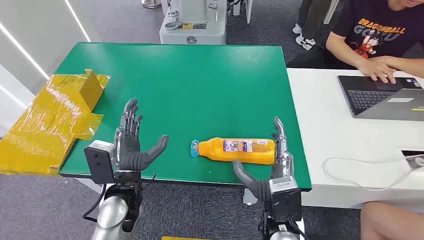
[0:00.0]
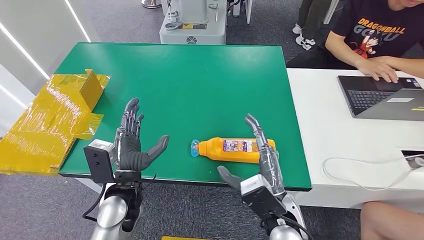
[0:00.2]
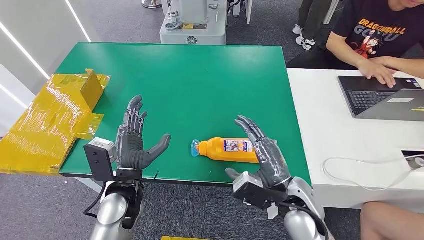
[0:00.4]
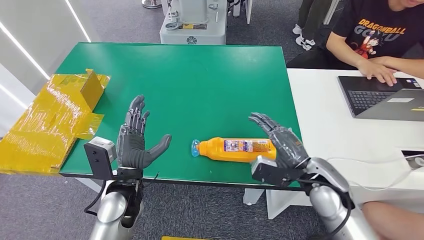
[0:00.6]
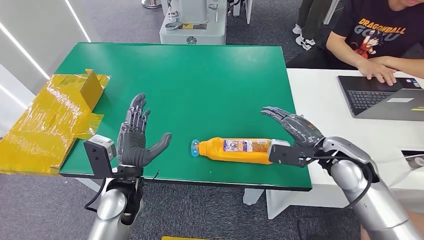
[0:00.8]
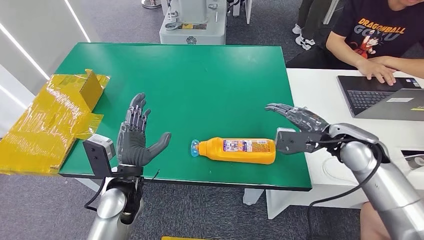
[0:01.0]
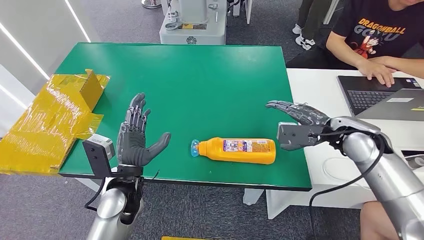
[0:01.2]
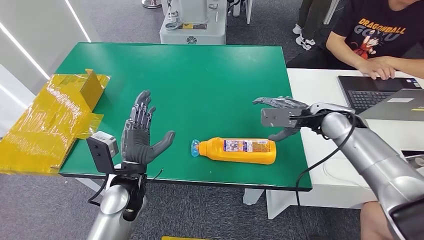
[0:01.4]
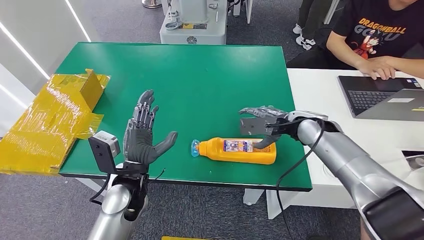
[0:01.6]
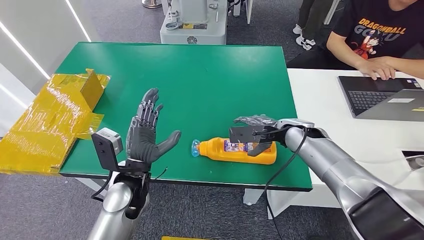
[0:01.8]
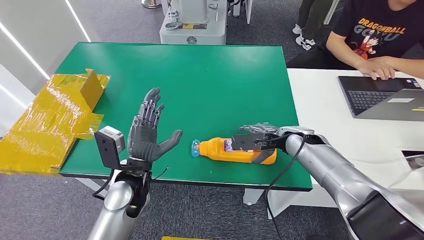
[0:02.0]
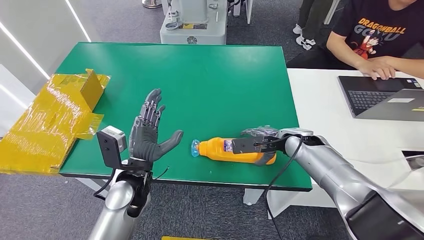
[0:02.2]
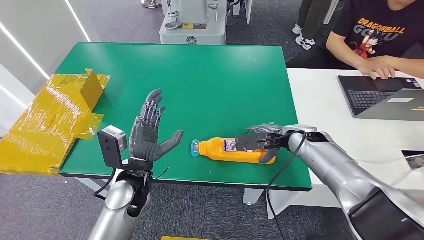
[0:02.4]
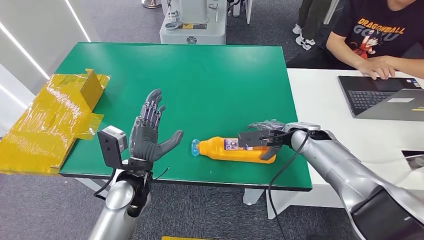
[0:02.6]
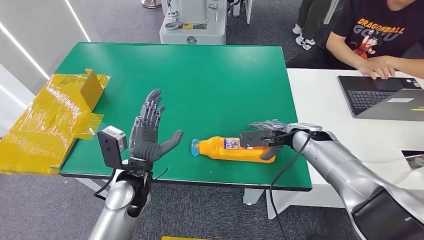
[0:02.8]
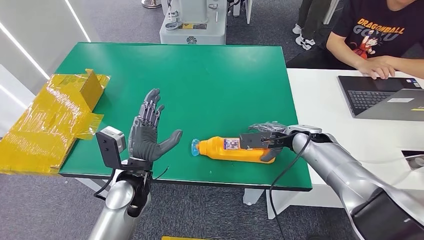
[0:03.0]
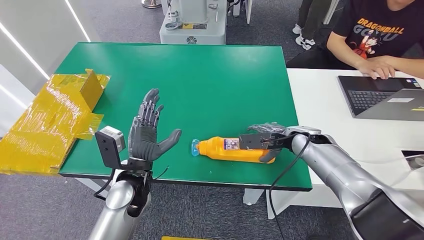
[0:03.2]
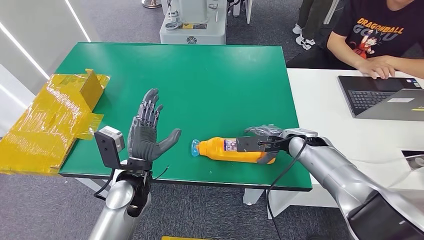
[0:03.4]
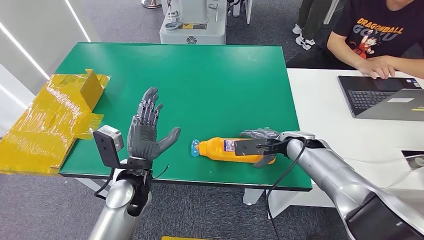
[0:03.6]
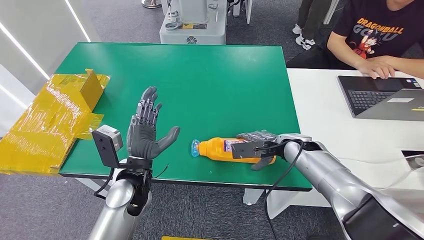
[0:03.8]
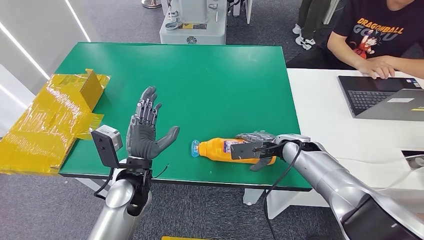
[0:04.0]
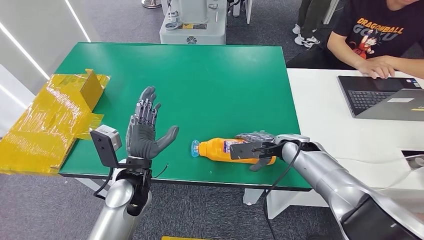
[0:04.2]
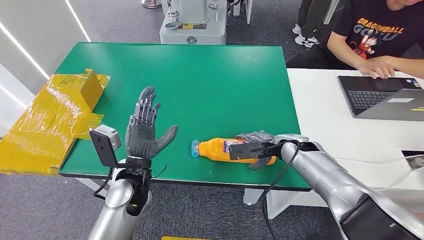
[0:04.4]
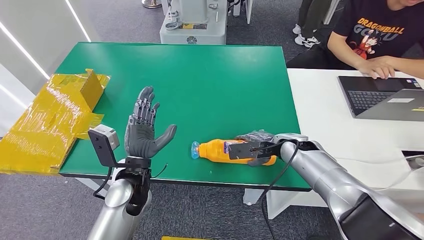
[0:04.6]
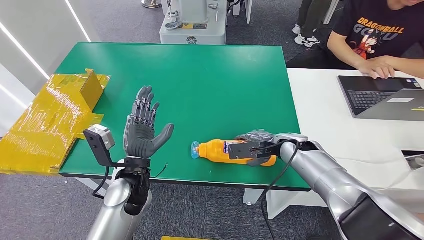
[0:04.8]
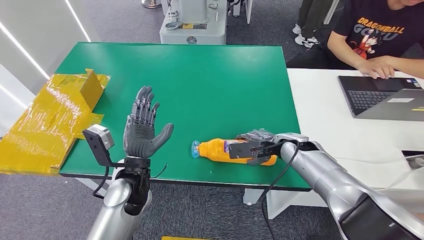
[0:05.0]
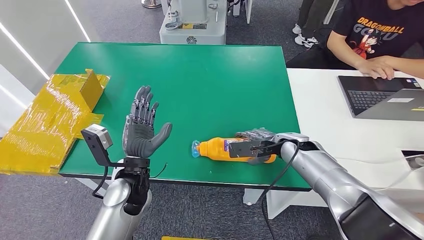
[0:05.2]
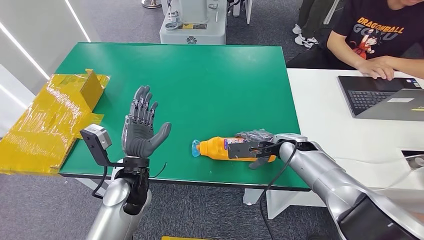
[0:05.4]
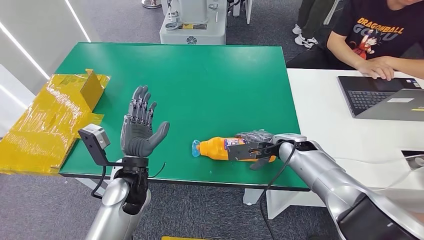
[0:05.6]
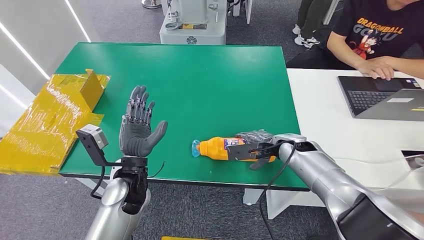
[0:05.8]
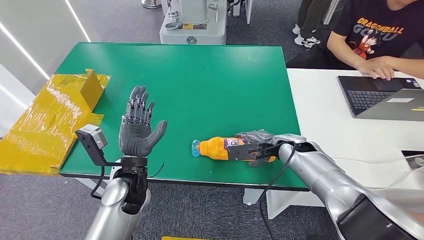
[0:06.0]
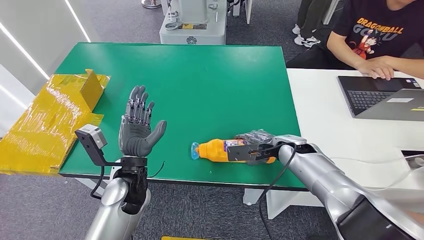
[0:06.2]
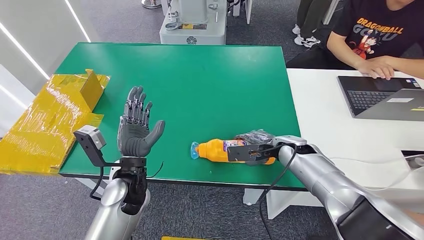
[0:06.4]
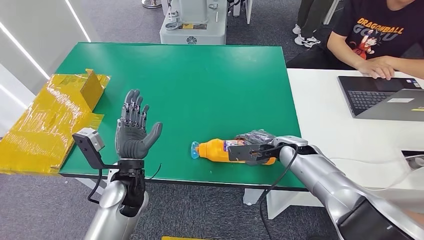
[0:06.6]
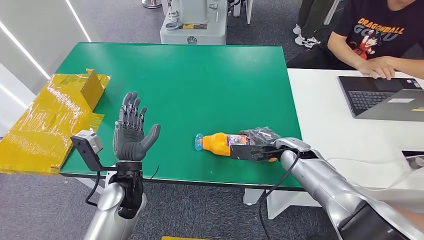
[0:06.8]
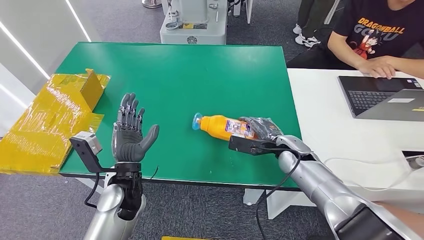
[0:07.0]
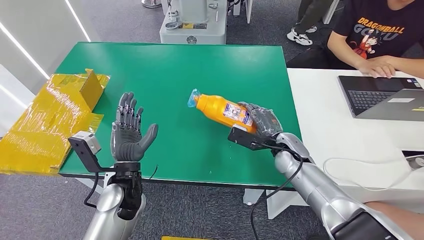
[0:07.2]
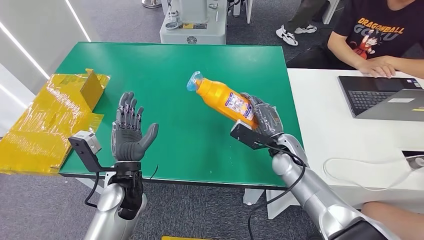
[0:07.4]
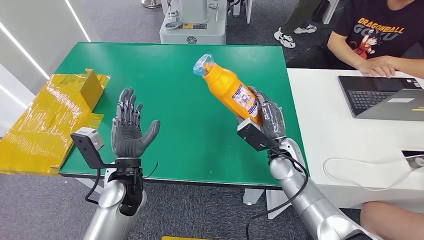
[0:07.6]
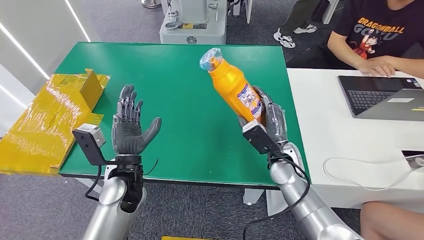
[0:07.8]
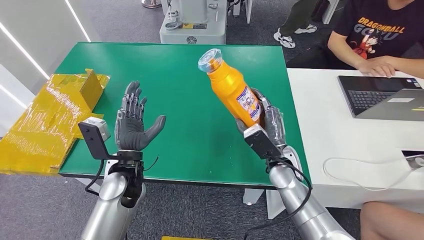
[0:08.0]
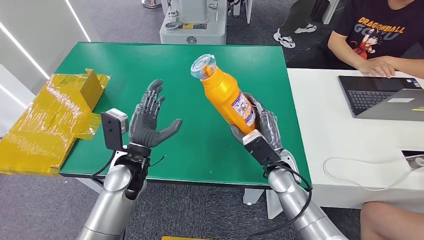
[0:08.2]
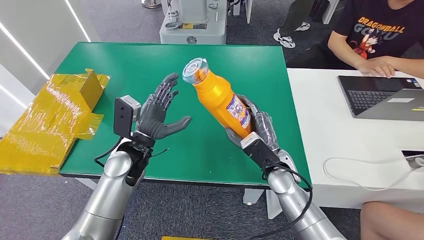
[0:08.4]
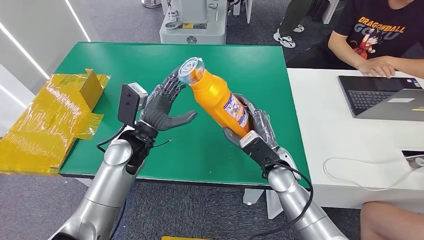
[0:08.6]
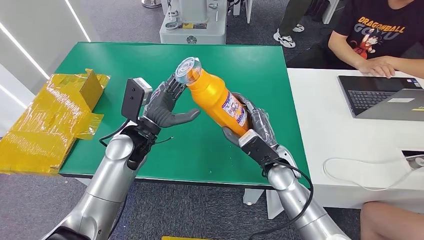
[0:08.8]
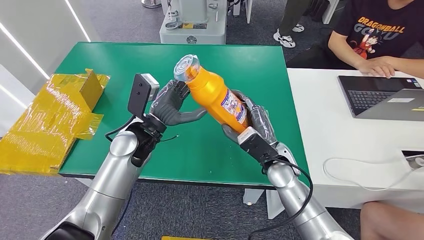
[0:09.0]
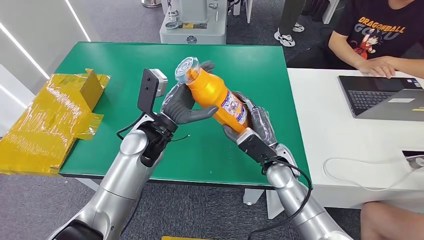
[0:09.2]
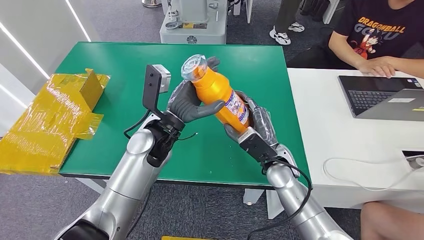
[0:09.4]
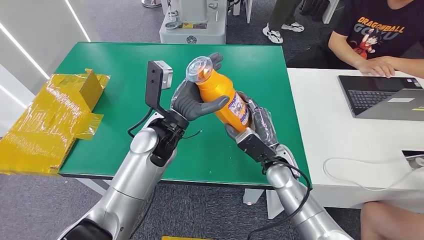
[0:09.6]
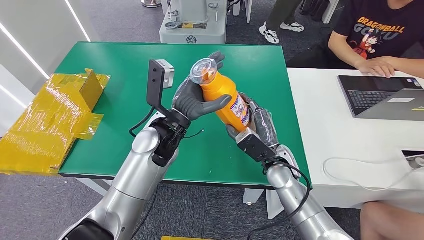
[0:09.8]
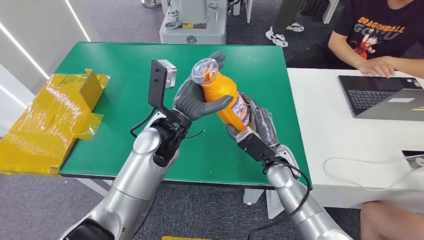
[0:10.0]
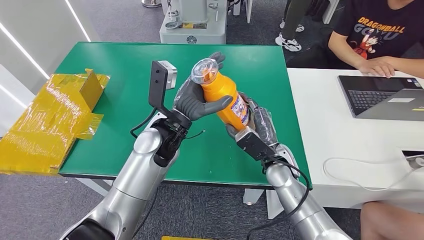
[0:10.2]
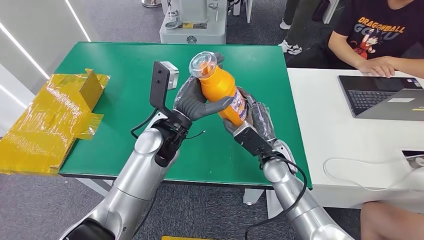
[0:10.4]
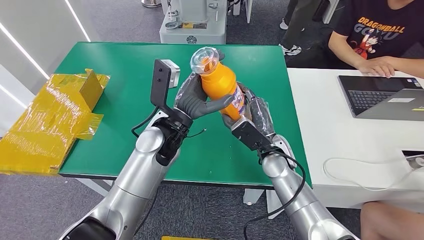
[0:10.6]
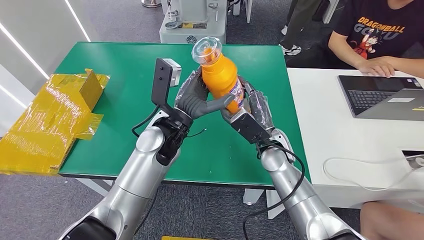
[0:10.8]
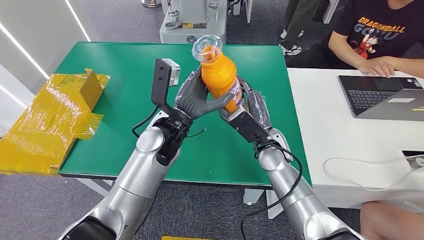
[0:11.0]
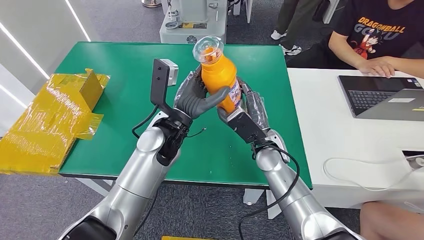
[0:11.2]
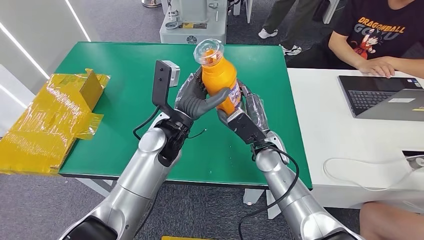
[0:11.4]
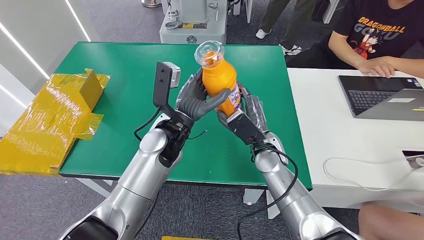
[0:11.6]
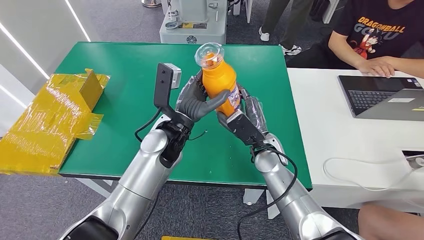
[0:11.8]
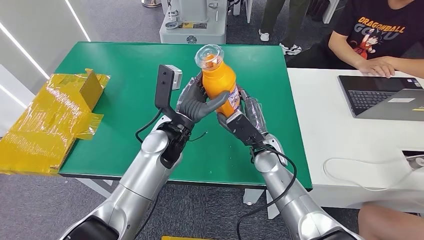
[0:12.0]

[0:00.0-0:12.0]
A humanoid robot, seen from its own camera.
Step, 0:00.0 to 0:07.6: Pick up the bottle from the table.
0:01.6 to 0:03.0: The hands stay close to where they were, moving slightly.
0:03.0 to 0:06.0: There are only small adjustments of the hands.
0:06.0 to 0:07.6: The right hand is displaced to the left by roughly 5 cm.
0:07.6 to 0:09.0: The left hand travels forward and upward by roughly 10 cm.
0:09.0 to 0:10.4: The left hand moves to the right, about 5 cm.
0:10.4 to 0:12.0: The hands make only small movements.

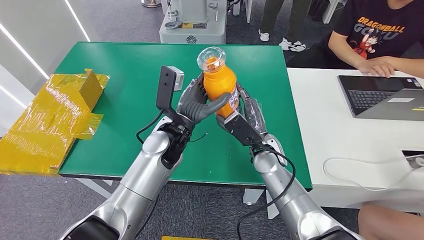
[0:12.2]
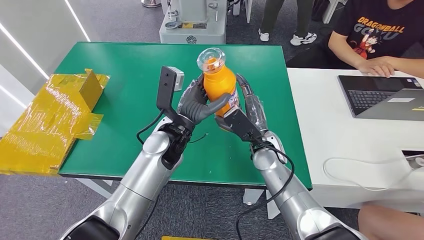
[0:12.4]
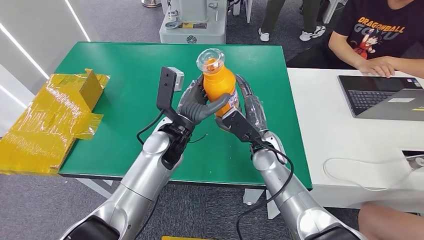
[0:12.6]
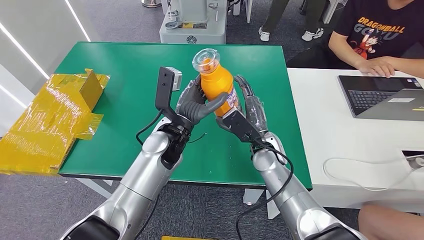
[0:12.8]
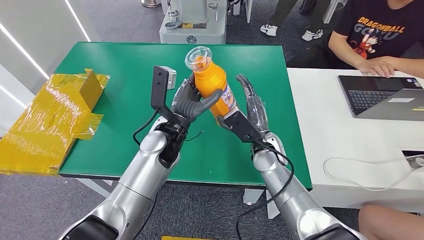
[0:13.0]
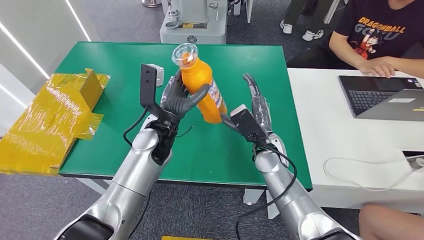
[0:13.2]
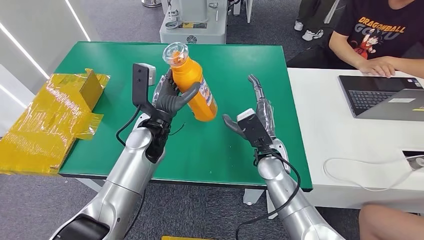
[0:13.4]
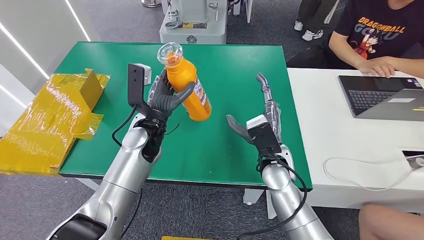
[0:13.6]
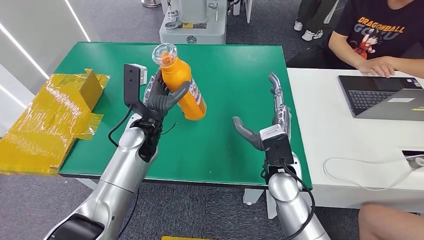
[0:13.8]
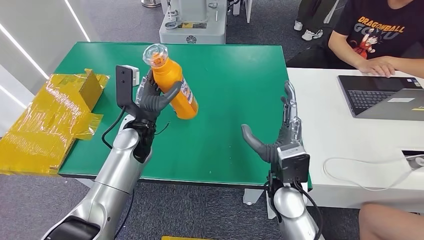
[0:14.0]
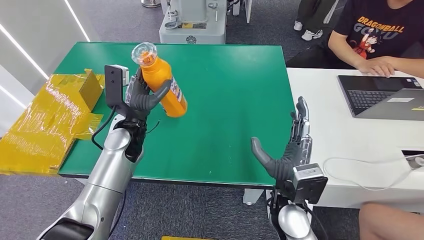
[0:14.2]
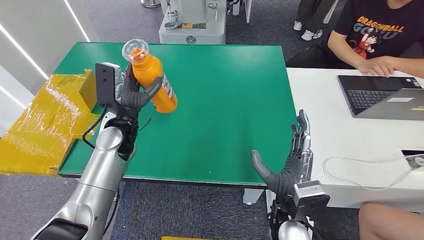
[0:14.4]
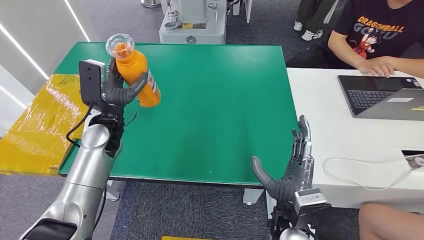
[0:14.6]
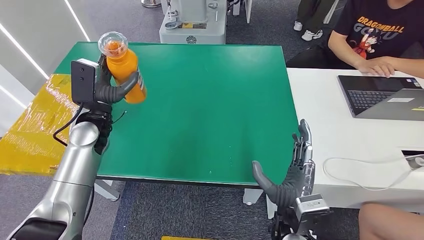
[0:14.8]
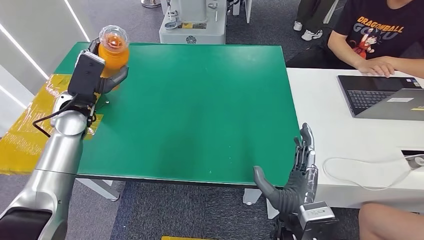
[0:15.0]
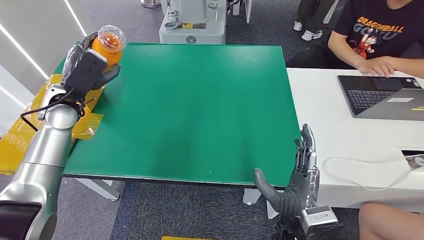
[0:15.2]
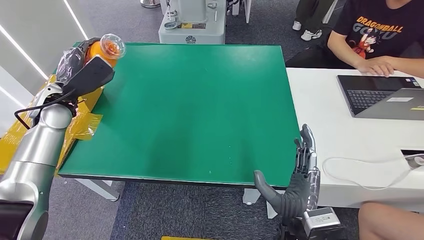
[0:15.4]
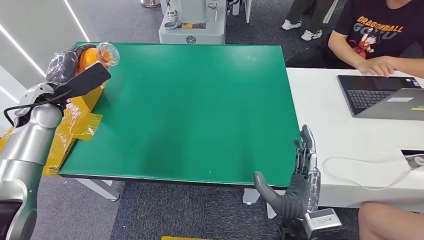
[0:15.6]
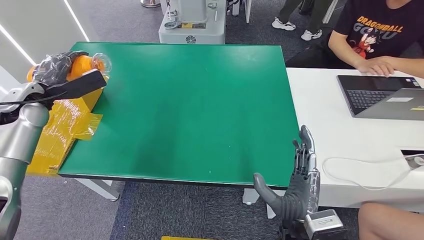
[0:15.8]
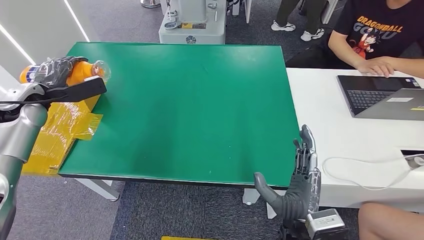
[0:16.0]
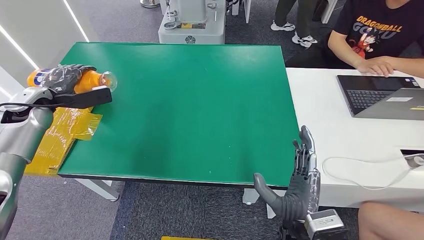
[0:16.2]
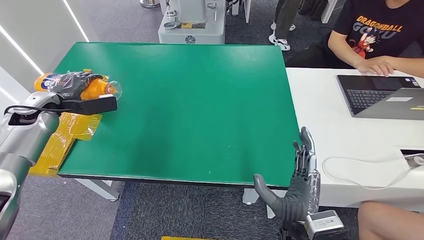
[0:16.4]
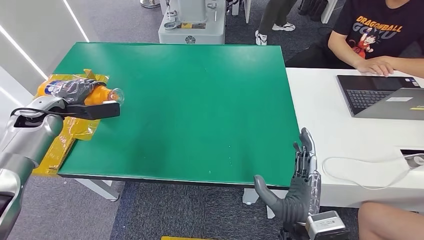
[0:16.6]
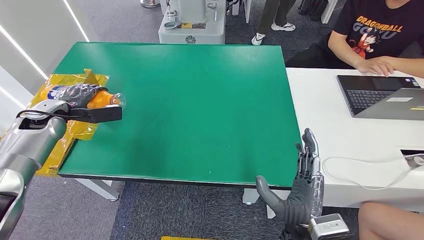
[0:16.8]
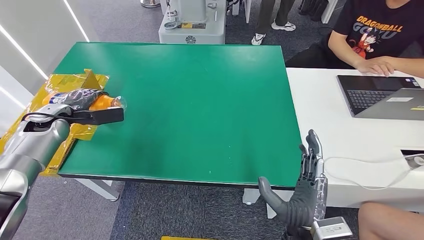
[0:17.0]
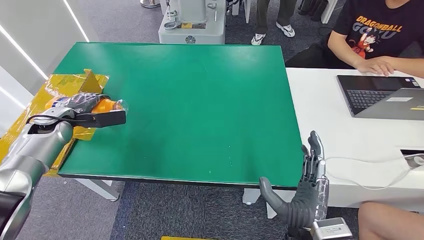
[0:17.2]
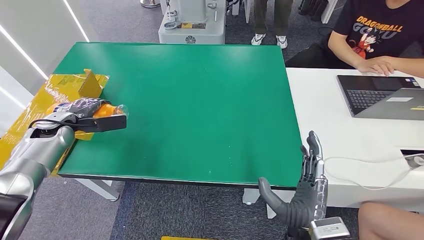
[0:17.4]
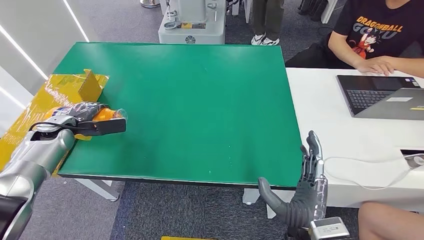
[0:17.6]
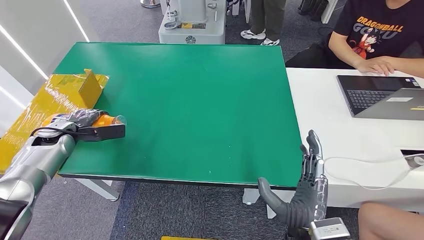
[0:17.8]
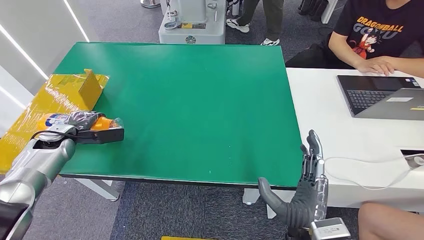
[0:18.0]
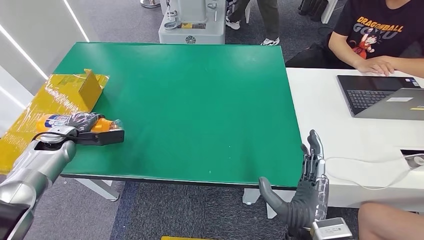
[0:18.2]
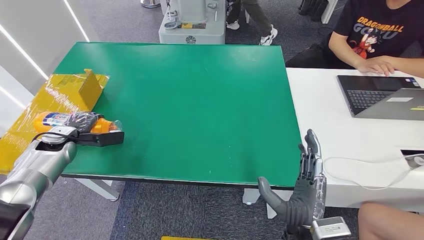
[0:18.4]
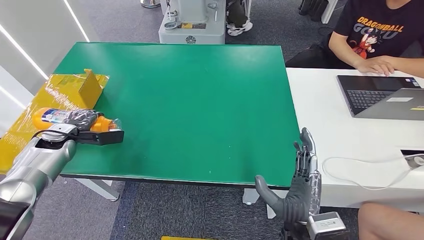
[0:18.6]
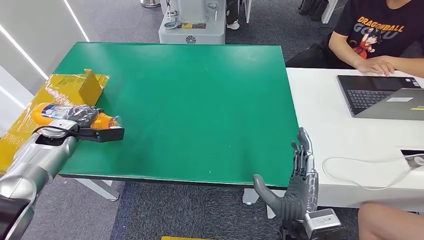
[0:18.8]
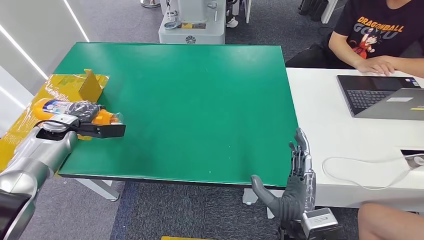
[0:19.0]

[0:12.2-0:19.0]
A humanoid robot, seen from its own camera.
0:12.2 to 0:13.6: The left hand travels to the left by some 5 cm.
0:15.0 to 0:16.2: The left hand moves to the left, roughly 15 cm.
0:16.2 to 0:17.6: The left hand travels downward by approximately 10 cm.
0:17.6 to 0:19.0: The hands stay close to where they were, moving slightly.
